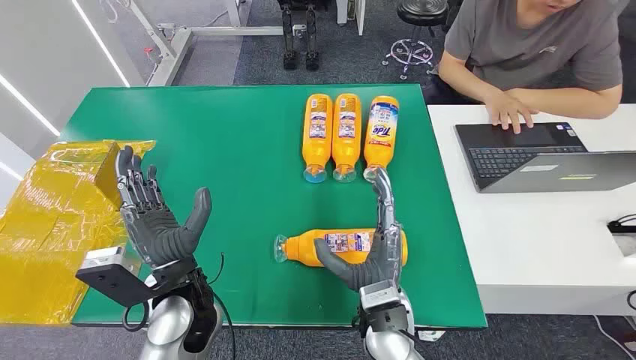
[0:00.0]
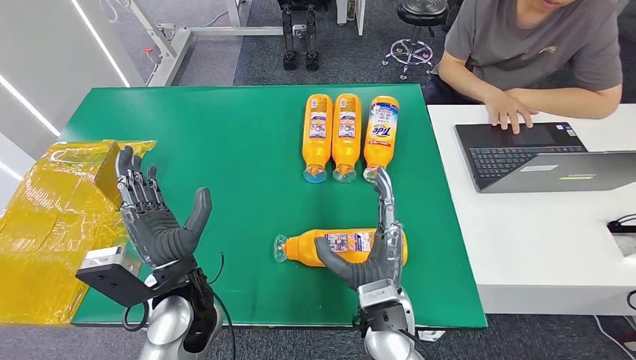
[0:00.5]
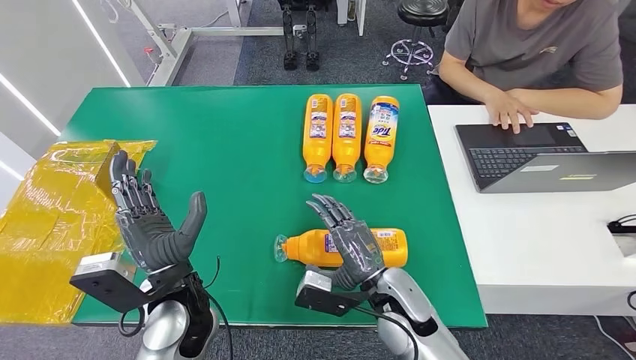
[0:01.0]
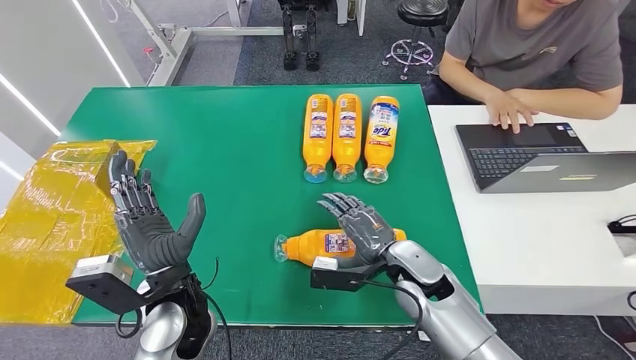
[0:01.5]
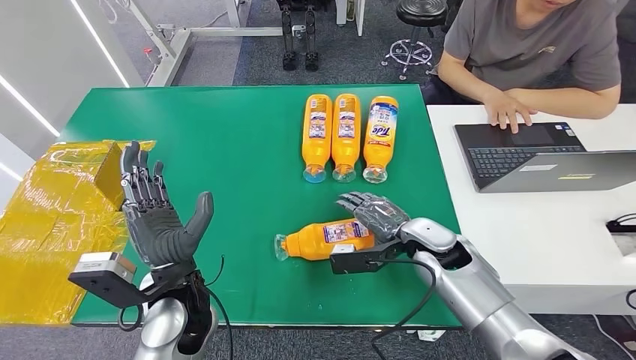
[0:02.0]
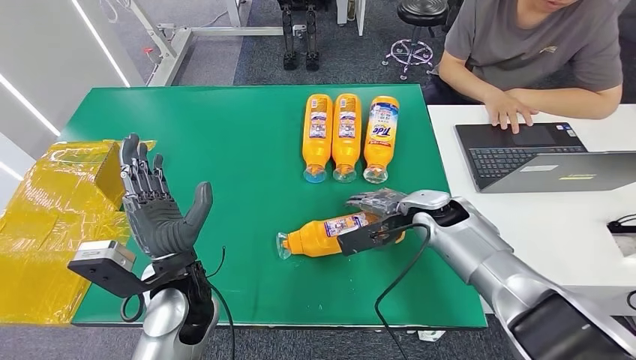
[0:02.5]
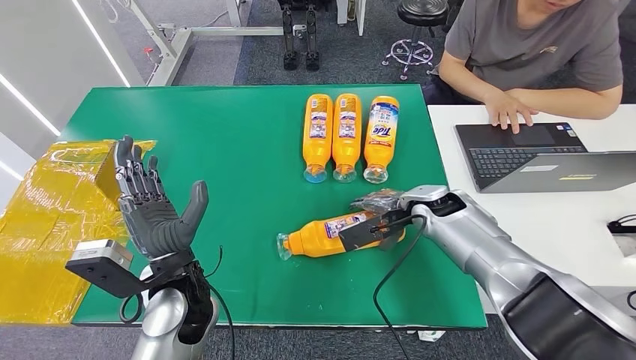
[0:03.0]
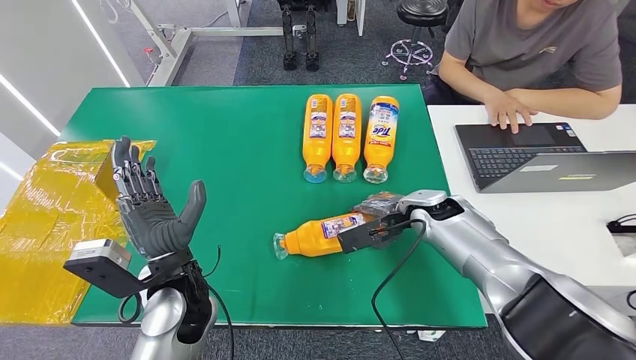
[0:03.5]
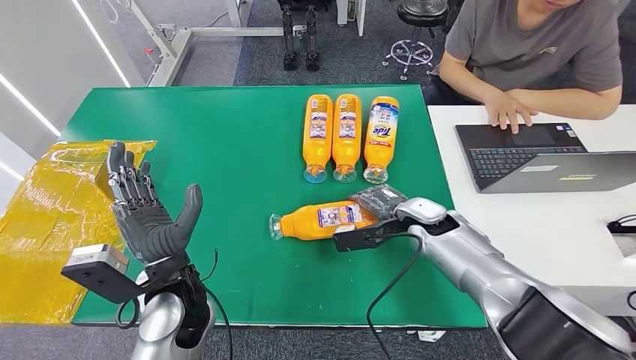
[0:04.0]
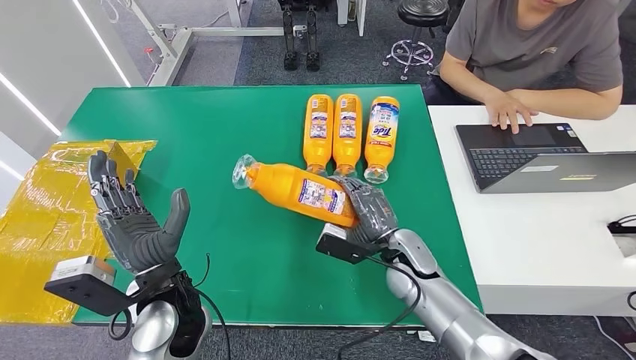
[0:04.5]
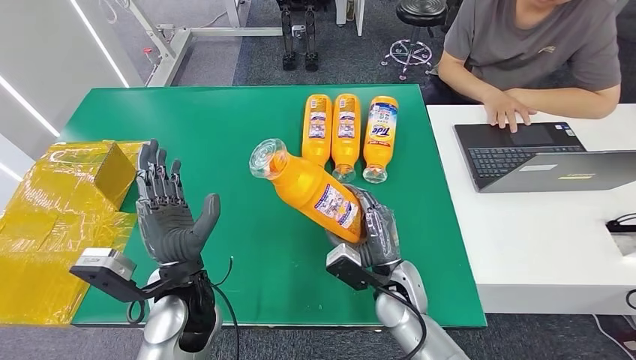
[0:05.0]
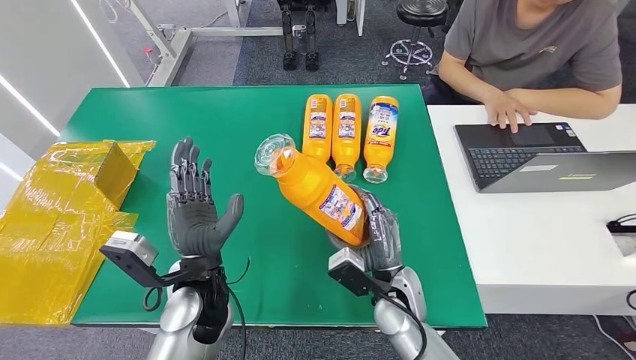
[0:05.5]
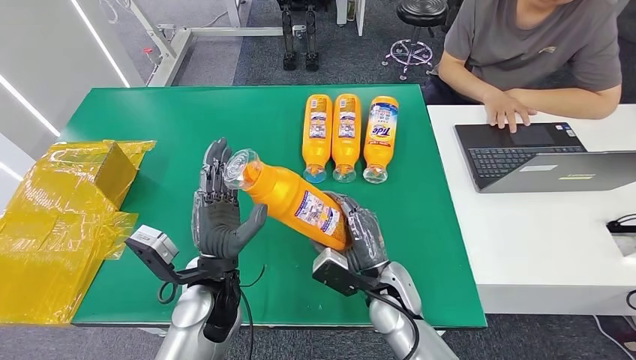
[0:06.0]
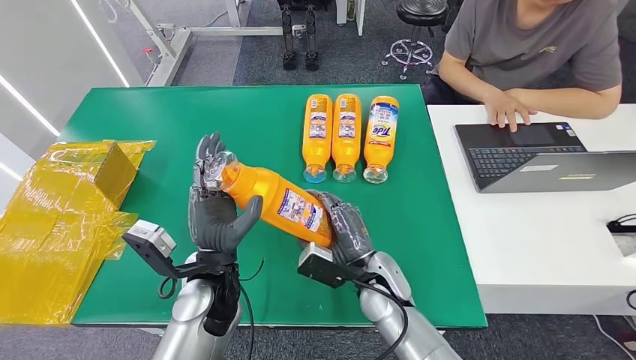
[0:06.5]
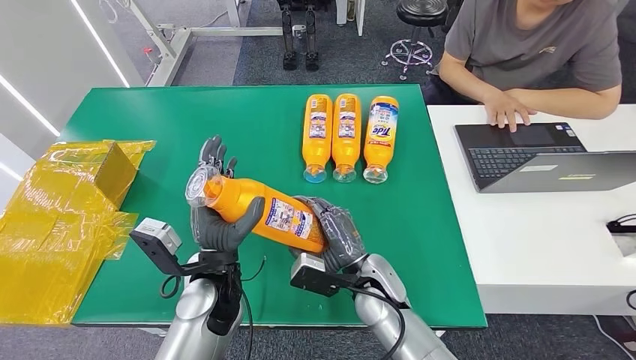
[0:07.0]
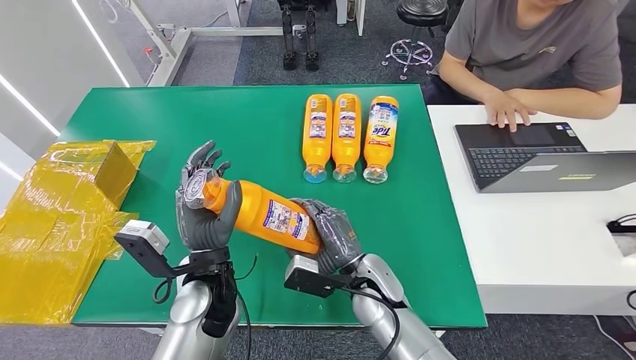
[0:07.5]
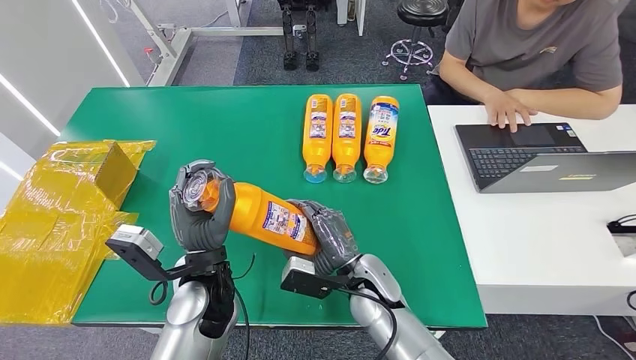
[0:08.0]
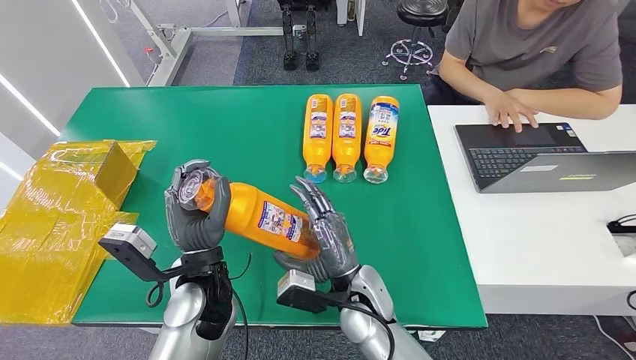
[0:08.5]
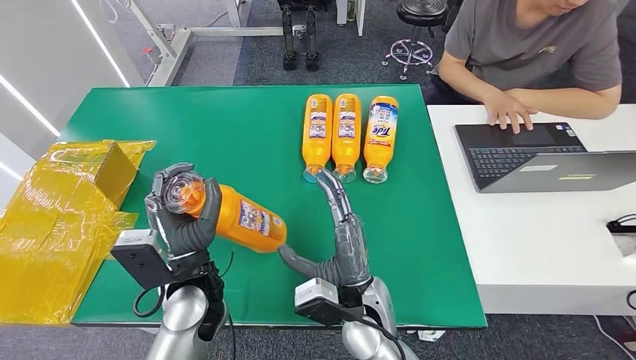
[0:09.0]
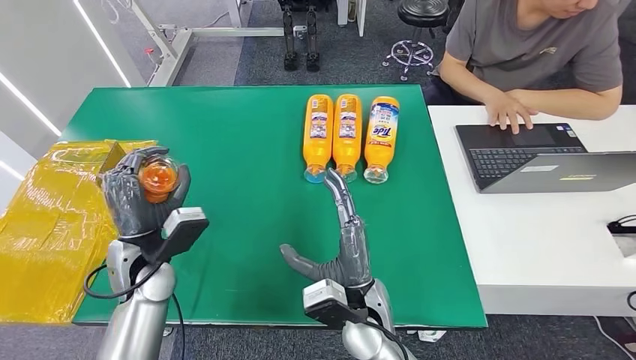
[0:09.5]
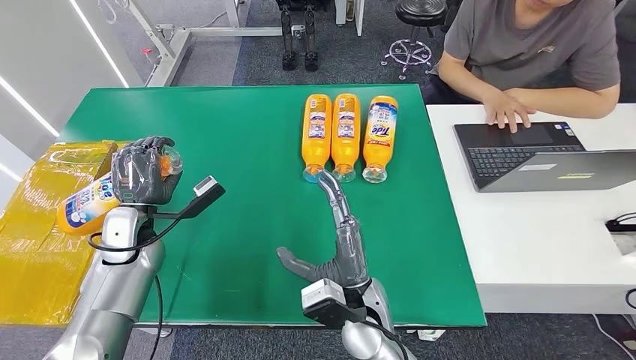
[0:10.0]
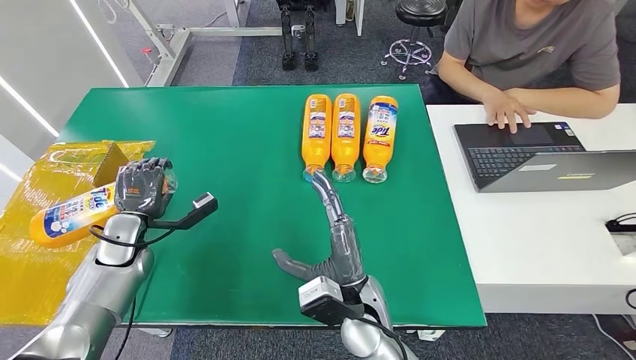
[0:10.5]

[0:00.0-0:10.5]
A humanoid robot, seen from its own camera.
Step, 0:00.0 to 0:04.5: Pick up the bottle from the table.
0:02.0 to 0:04.0: The right hand shifts some 5 cm forward.
0:06.5 to 0:08.5: The hands stay close to where they were, moving slightly.
0:08.5 to 0:10.5: The left hand moves to the left and forward, roughly 25 cm.

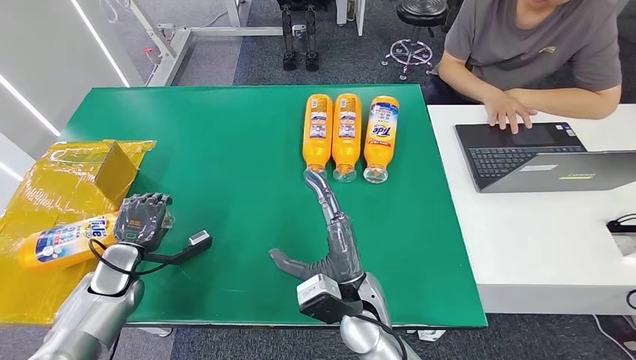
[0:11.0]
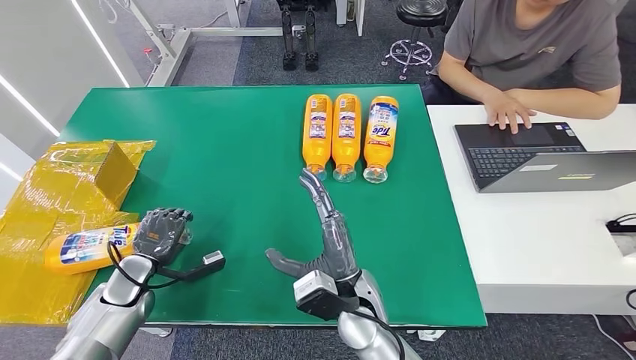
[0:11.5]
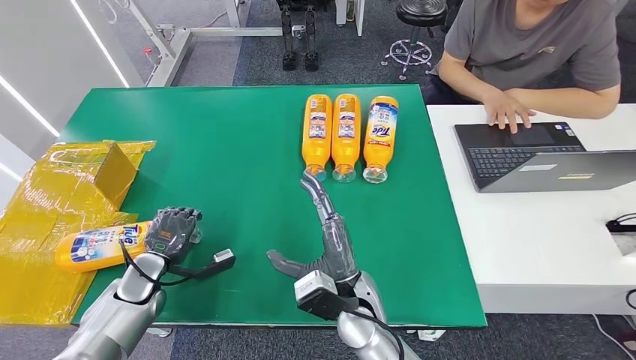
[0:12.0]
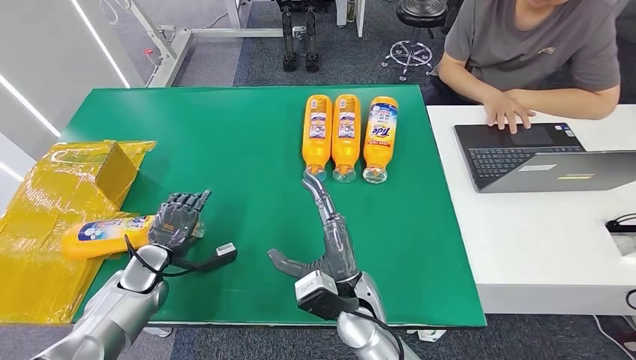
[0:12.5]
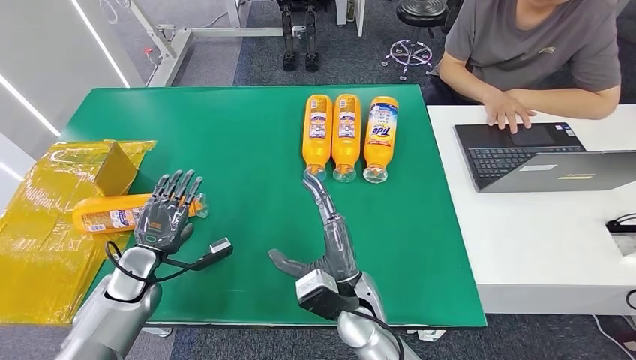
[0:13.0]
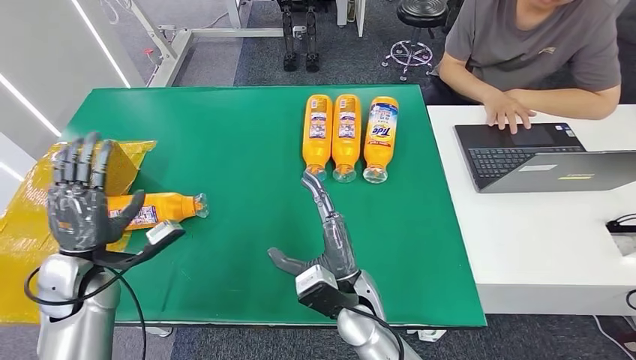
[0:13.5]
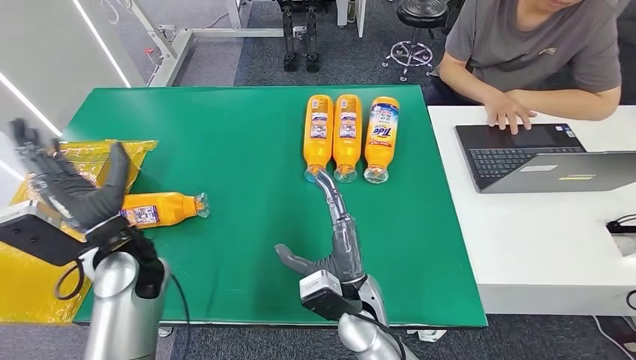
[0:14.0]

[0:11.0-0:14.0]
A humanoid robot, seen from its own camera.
Step, 0:11.0 to 0:14.0: Turn the bottle to the front side.
0:11.0 to 0:12.5: The hands make only small movements.
0:12.5 to 0:14.0: The left hand moves upward and to the right, roughly 20 cm.
